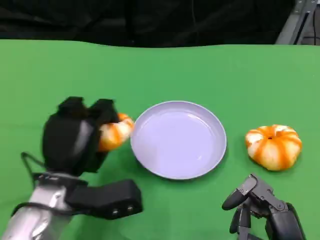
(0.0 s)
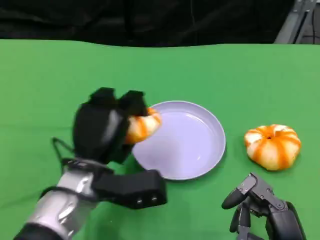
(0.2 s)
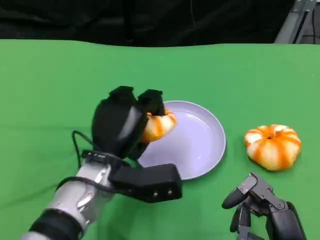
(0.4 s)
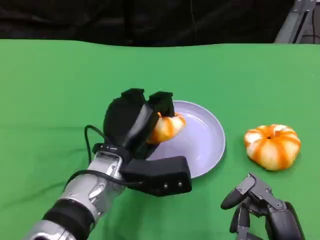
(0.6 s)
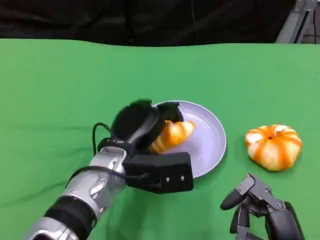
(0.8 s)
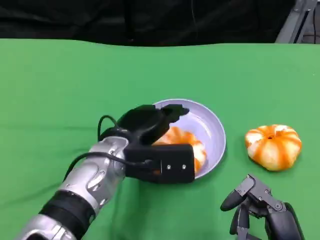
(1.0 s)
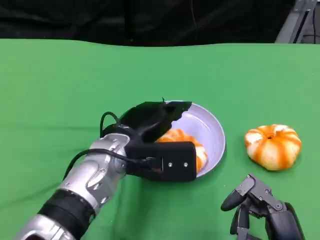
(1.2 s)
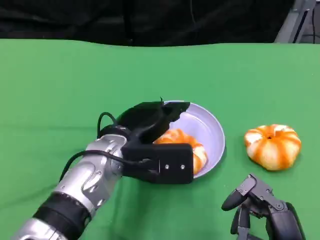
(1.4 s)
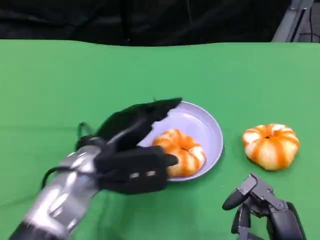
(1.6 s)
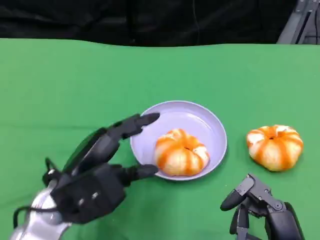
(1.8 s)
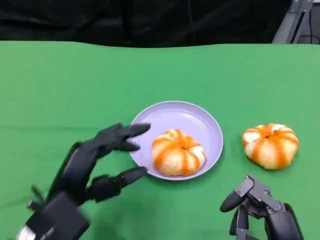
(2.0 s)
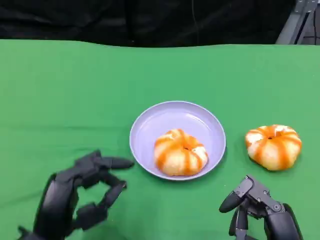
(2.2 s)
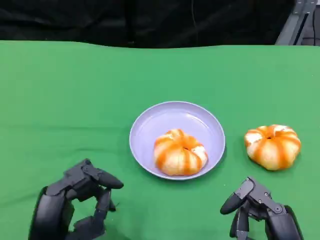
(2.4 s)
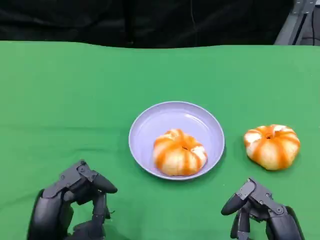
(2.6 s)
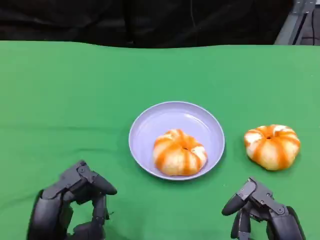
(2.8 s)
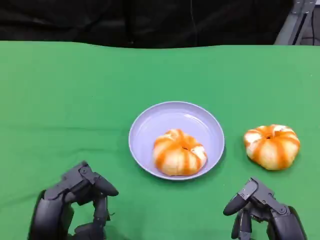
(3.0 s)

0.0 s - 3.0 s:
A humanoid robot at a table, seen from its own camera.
Task of the whole recording: Grasp the bread from the table and place it into the plate.
1.6 s - 3.0 s: The left hand heads backward and downward, covering approximately 15 cm.

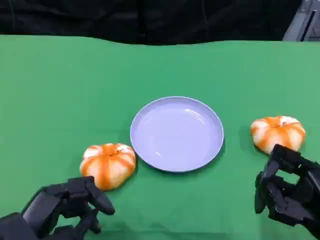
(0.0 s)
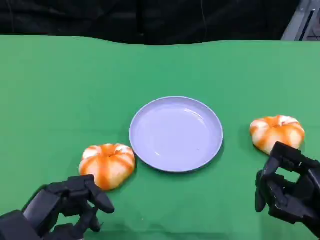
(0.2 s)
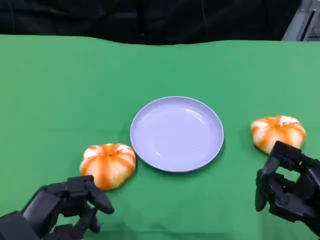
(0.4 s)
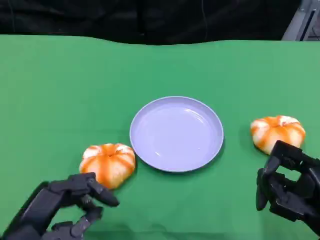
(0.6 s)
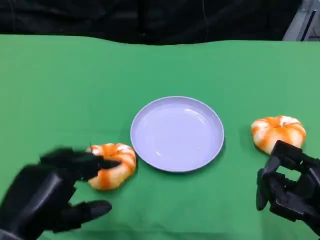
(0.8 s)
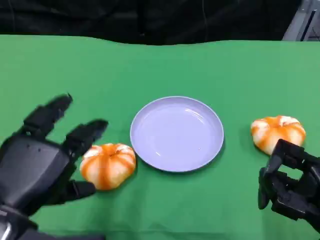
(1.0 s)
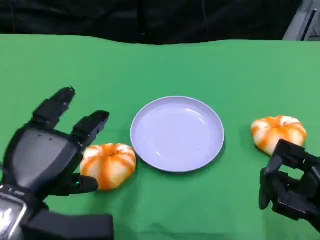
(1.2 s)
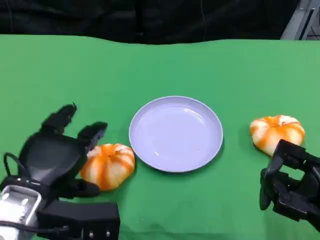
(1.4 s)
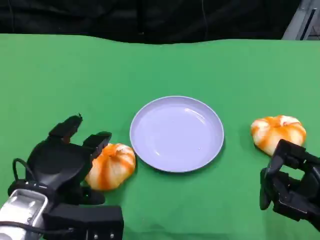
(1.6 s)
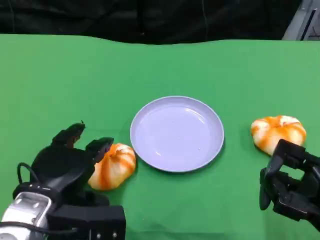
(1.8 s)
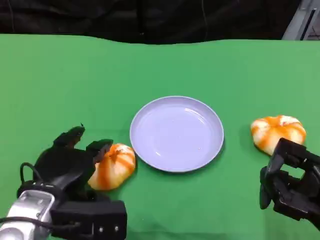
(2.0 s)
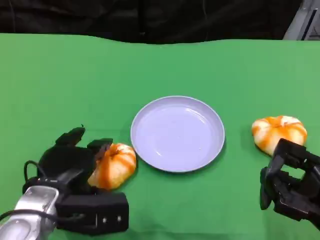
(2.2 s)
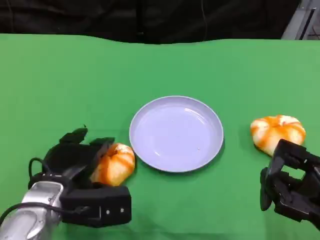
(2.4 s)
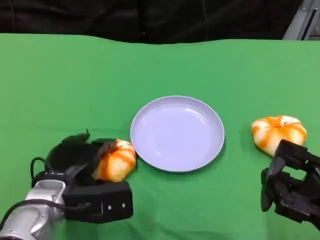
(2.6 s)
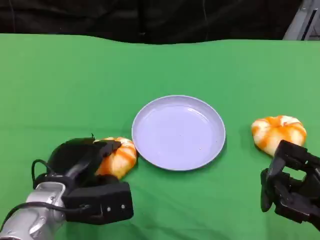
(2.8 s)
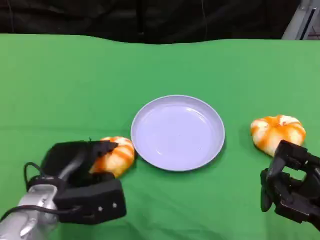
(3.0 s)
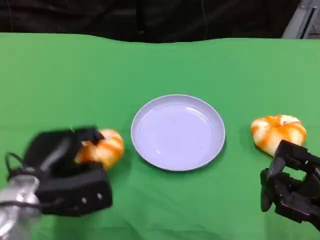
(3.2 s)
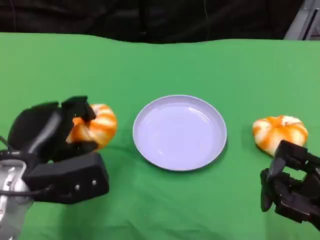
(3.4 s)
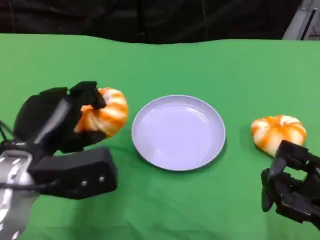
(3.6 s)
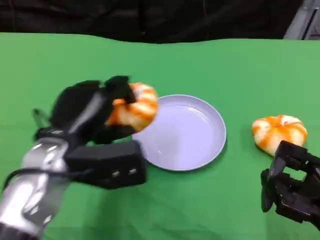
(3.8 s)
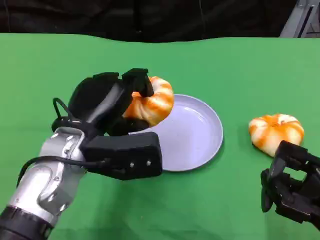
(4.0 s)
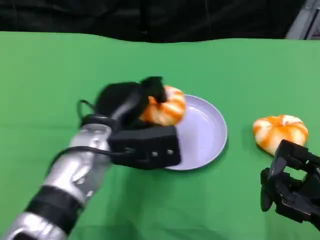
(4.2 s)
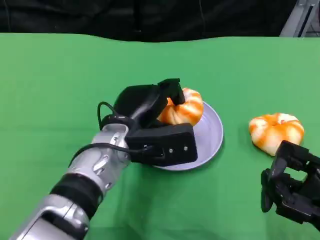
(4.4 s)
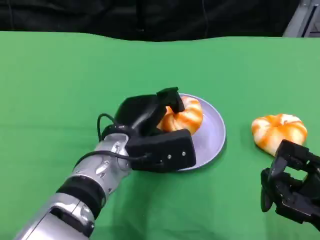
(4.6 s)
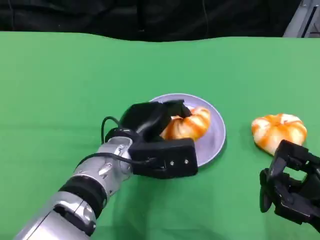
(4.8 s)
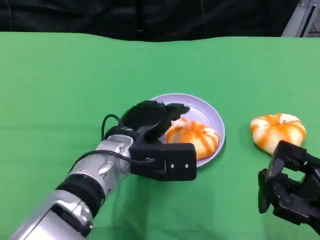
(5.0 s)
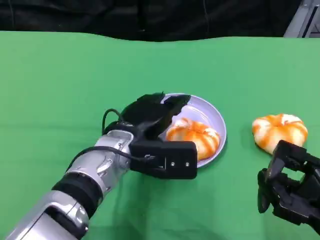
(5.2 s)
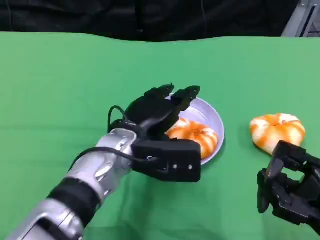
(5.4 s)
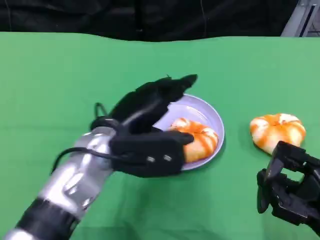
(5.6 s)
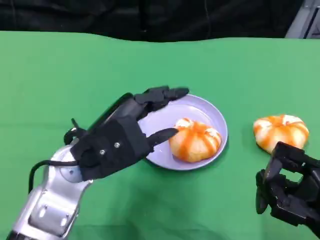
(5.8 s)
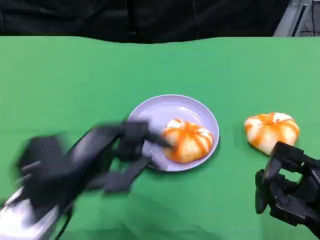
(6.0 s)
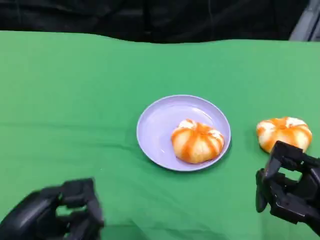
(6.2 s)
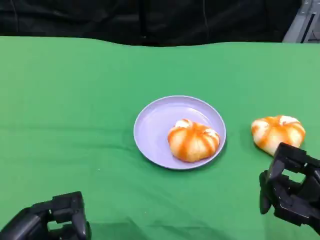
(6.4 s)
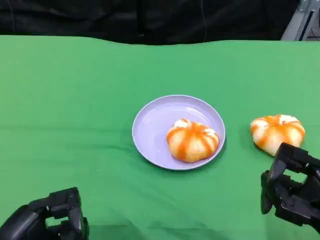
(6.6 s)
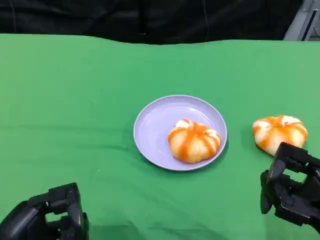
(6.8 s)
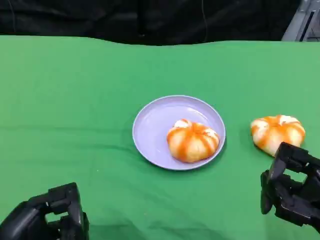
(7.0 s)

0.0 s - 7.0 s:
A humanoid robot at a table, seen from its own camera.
Task of the whole recording: Grasp the bread from the table and place it into the plate.
0.0 s - 1.4 s: The left hand goes approximately 5 cm forward.
1.4 s - 2.8 s: The left hand heads downward, covering about 5 cm.
2.8 s - 4.2 s: The left hand heads to the right and upward, covering approximately 10 cm.
5.6 s - 7.0 s: The left hand travels backward, to the left and downward by about 20 cm.

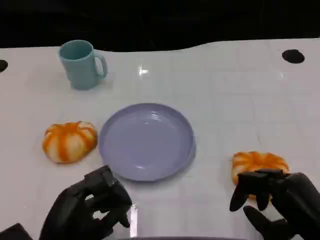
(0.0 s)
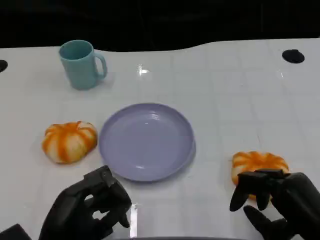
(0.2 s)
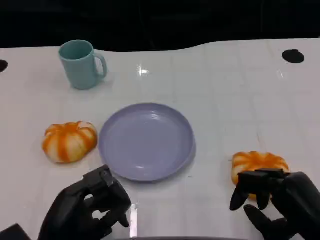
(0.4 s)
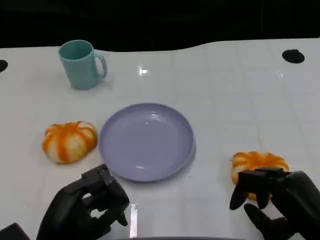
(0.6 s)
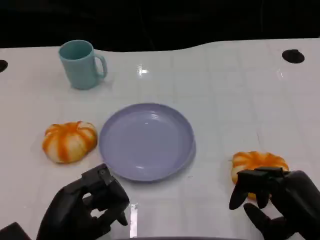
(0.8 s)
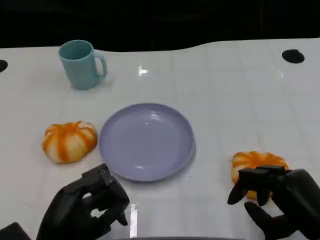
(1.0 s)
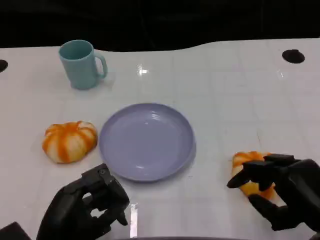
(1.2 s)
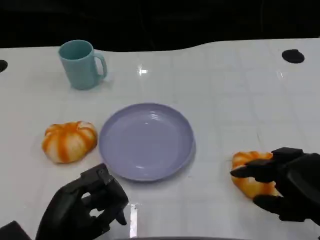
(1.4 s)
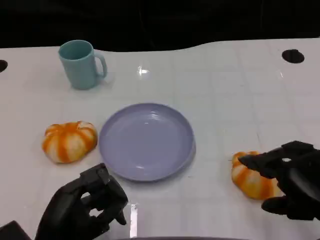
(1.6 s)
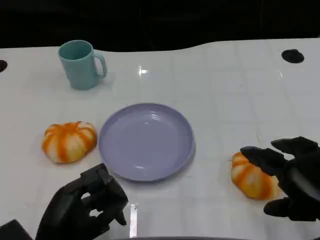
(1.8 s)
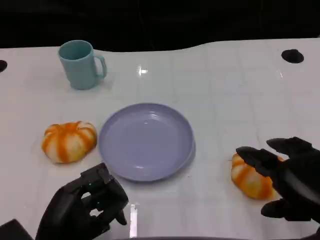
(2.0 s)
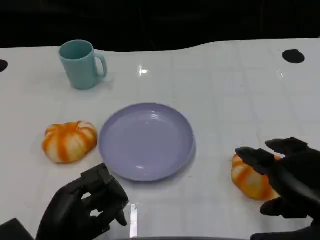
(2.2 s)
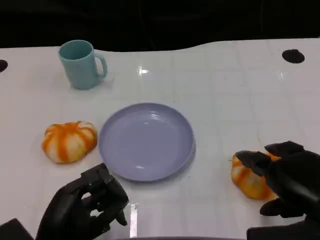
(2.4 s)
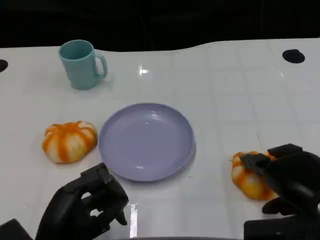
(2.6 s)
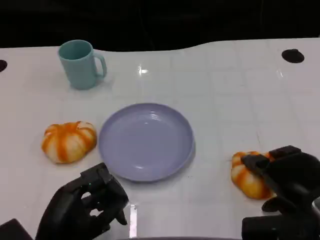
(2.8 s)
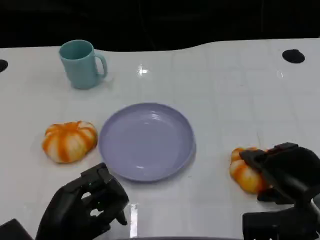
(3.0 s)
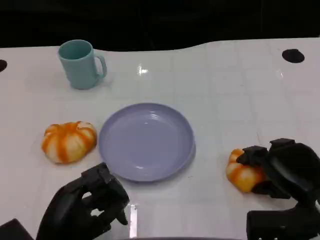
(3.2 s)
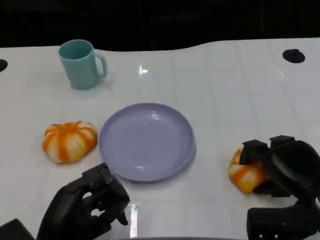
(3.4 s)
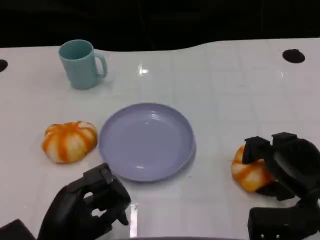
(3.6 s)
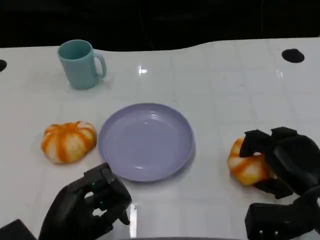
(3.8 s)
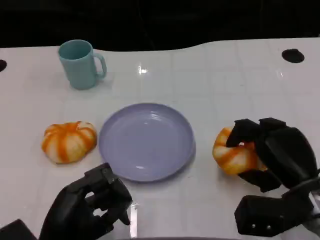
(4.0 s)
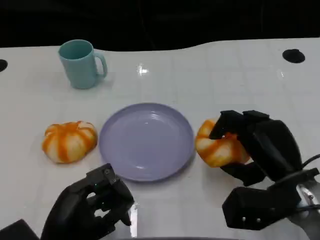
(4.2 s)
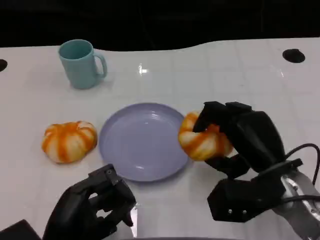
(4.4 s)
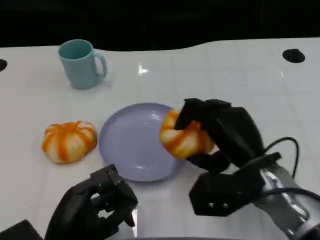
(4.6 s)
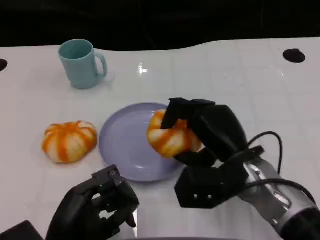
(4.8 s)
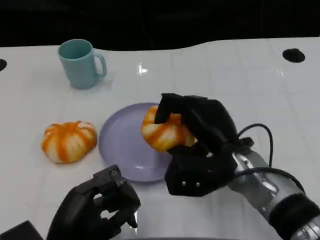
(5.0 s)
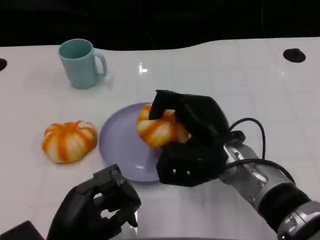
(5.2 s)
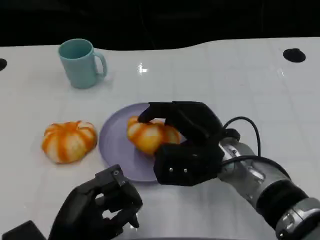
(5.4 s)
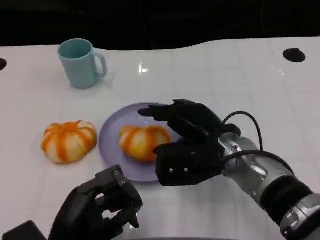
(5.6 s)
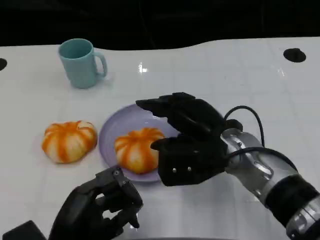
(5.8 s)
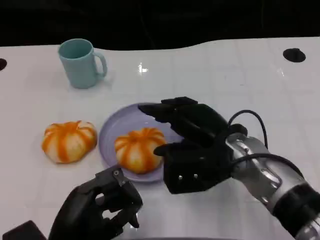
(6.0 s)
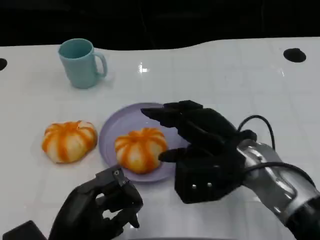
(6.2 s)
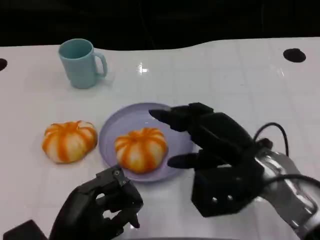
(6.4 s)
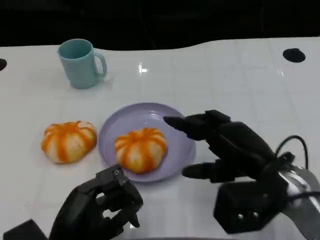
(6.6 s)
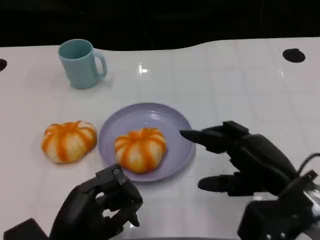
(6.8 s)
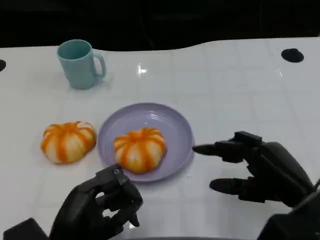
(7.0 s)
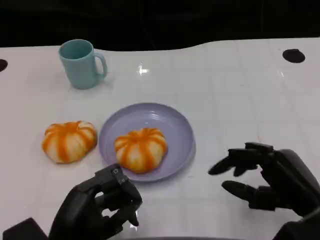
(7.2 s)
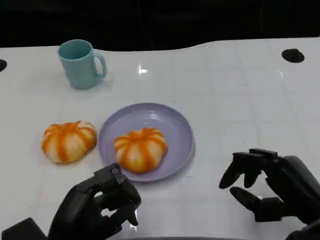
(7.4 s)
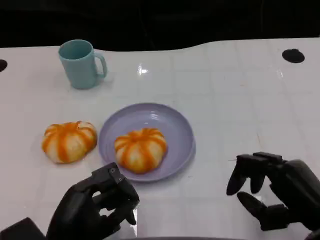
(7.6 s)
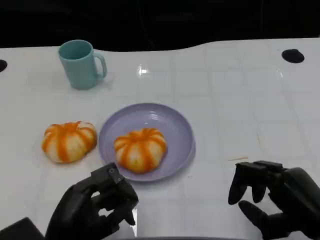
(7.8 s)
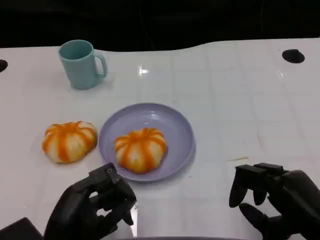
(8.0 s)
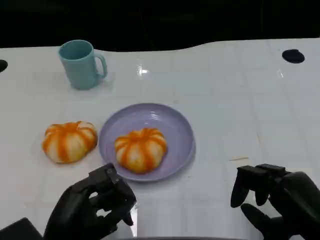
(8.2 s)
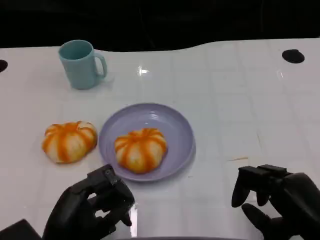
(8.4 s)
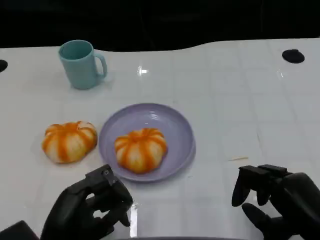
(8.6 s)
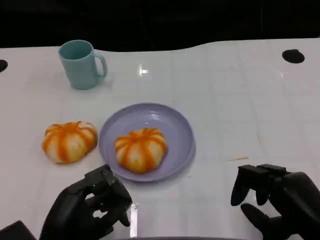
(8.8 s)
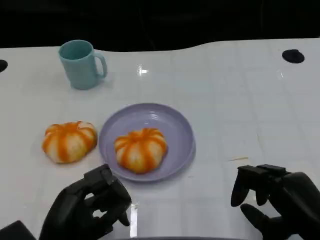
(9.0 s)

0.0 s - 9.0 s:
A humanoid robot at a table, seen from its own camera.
Task of the whole recording: Grasp the bread from the table and place it into the plate.
0.0 s - 1.6 s: The right hand heads upward, covering about 5 cm.
1.6 s - 3.0 s: The right hand heads downward and forward, covering some 10 cm.
3.0 s - 4.4 s: The right hand moves to the left, roughly 5 cm.
4.4 s - 6.0 s: The right hand is displaced to the left by about 5 cm.
6.0 s - 7.6 s: The right hand travels to the right and backward by roughly 15 cm.
7.6 s - 9.0 s: The hands move only a little.

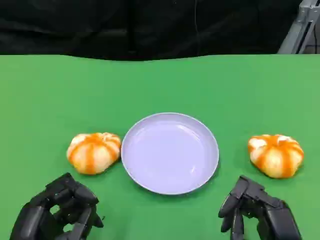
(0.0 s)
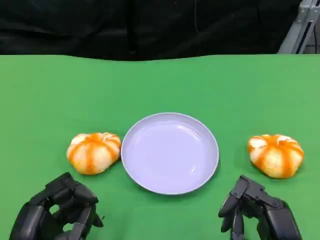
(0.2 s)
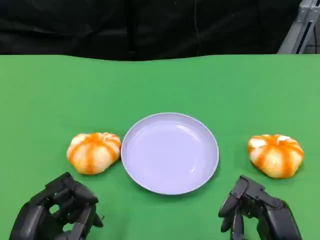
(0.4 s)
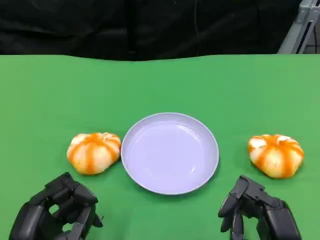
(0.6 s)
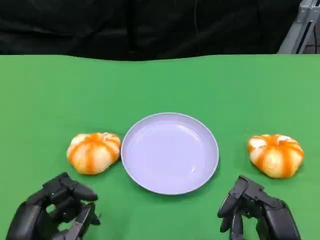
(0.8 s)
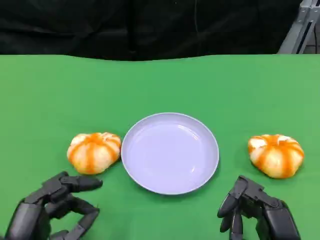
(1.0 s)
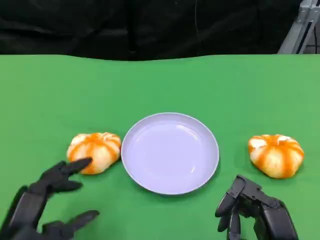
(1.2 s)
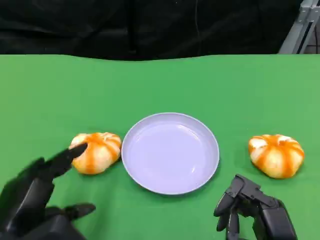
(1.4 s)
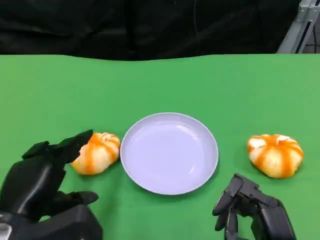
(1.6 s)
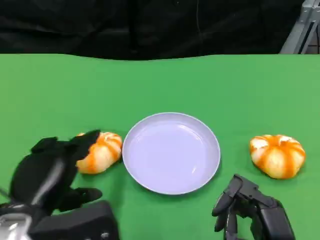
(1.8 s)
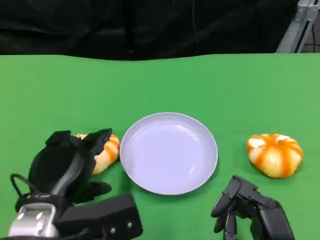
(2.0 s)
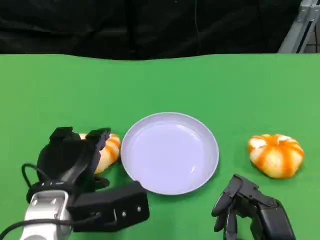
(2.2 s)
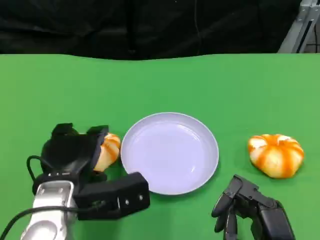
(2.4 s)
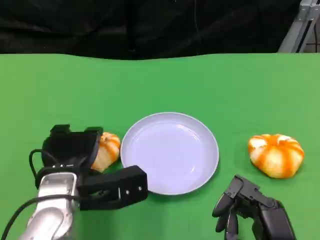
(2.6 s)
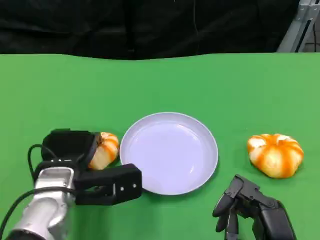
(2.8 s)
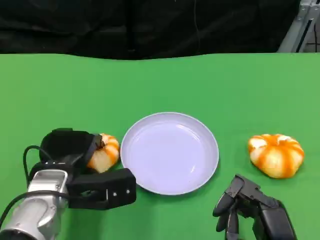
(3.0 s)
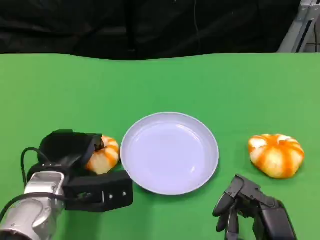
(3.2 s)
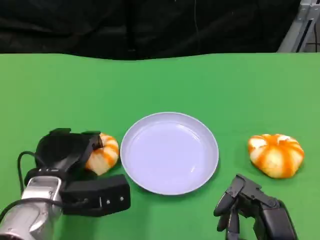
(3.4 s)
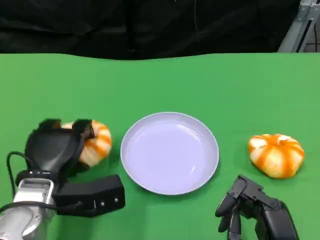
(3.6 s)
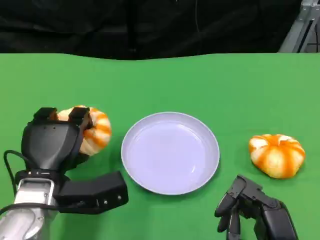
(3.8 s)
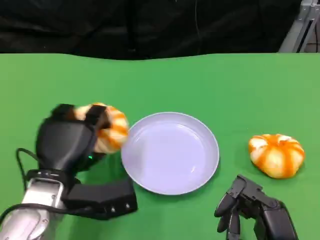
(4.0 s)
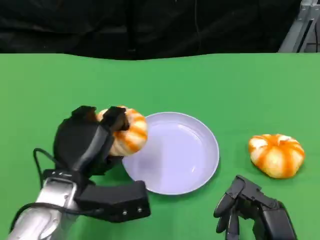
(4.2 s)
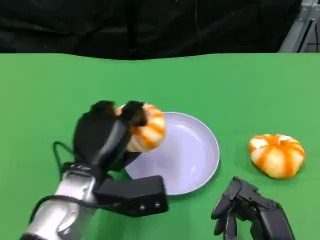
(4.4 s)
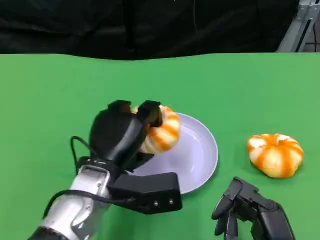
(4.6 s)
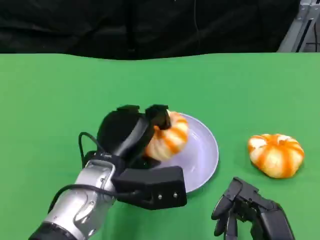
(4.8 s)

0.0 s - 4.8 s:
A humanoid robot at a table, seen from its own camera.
Task of the whole recording: Grasp the bread from the table and place it into the plate.
0.0 s - 1.6 s: The left hand ends up roughly 5 cm from where it was.
1.6 s - 3.2 s: The left hand moves forward, approximately 10 cm.
3.2 s - 4.8 s: The left hand goes approximately 10 cm to the right.
